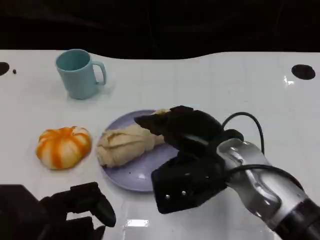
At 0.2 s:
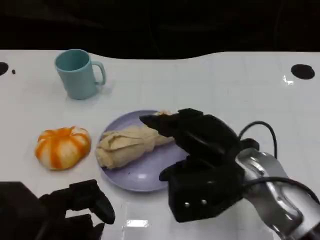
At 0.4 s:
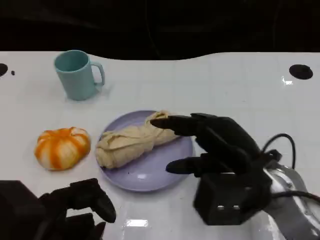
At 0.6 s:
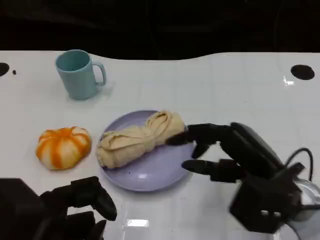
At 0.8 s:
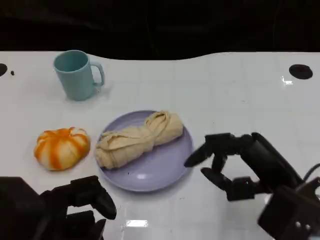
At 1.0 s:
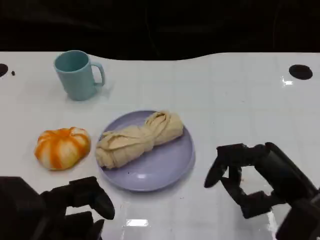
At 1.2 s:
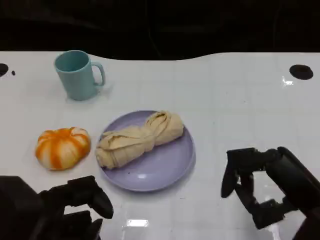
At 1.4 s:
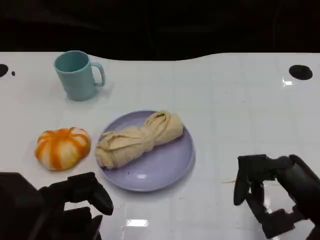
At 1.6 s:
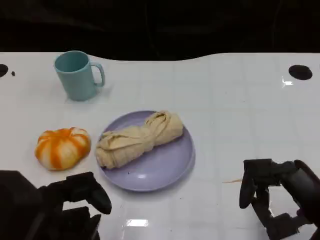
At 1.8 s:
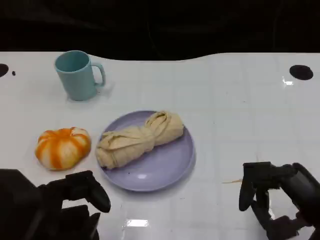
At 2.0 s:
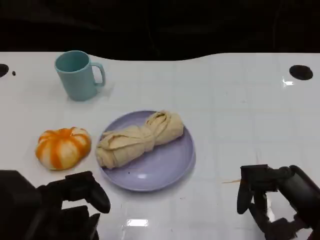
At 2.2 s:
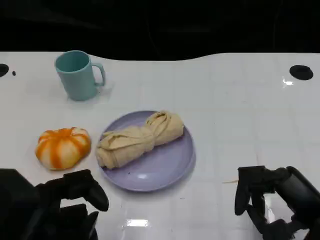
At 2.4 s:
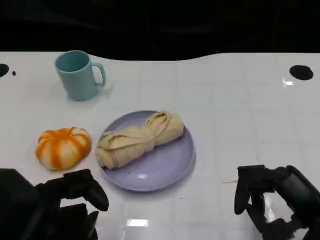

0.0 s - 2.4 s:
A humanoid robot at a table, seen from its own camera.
Task of the whole recording: Grasp the towel on the left side of the plate with the left hand and place it into the plate.
0.0 s - 1.2 s: The right hand shifts about 15 cm to the right and backward.
1.2 s - 2.4 s: The hands make only small movements.

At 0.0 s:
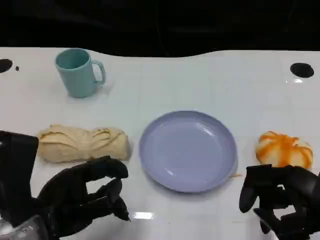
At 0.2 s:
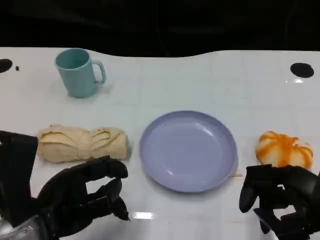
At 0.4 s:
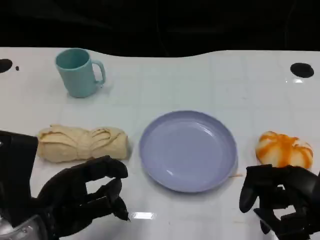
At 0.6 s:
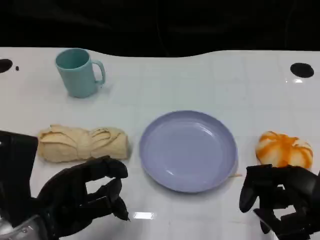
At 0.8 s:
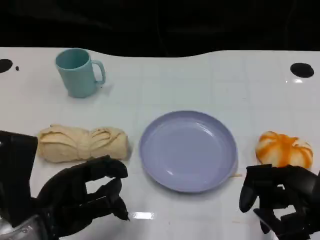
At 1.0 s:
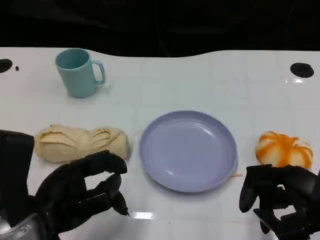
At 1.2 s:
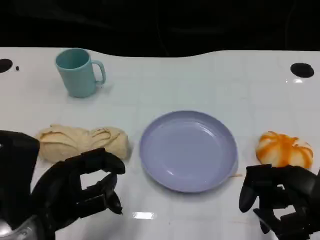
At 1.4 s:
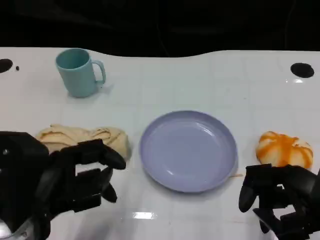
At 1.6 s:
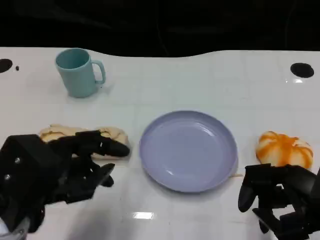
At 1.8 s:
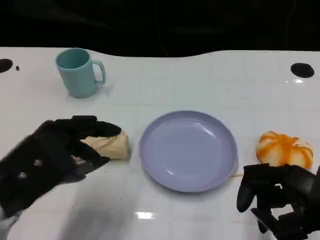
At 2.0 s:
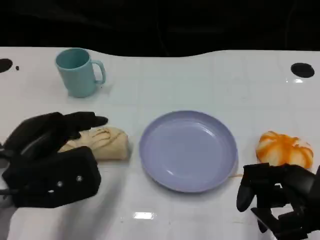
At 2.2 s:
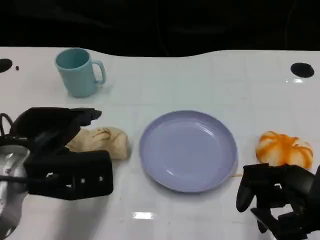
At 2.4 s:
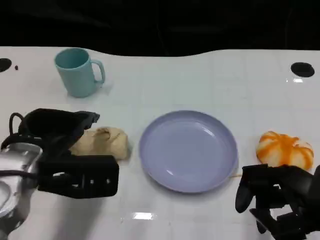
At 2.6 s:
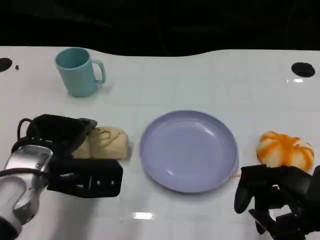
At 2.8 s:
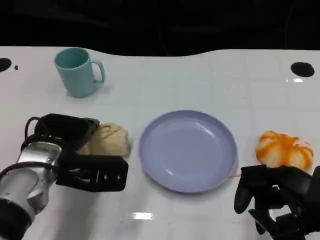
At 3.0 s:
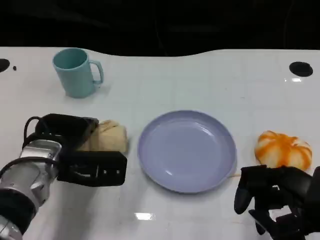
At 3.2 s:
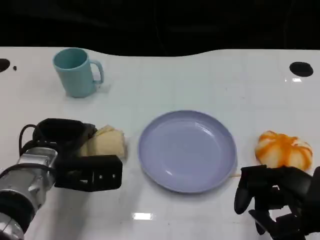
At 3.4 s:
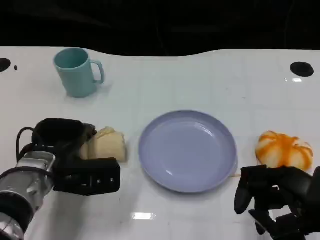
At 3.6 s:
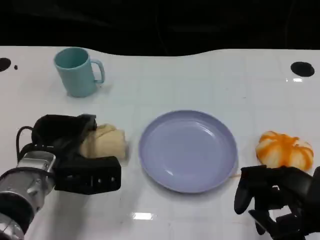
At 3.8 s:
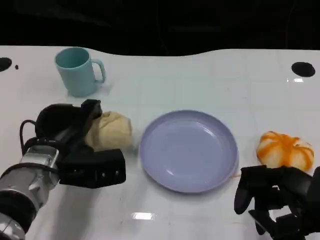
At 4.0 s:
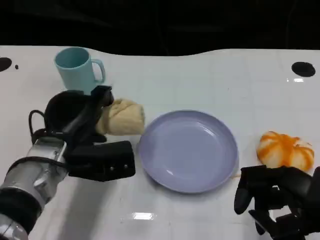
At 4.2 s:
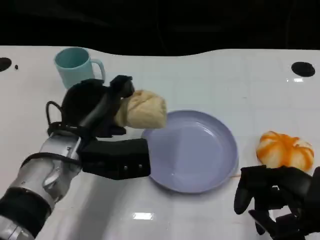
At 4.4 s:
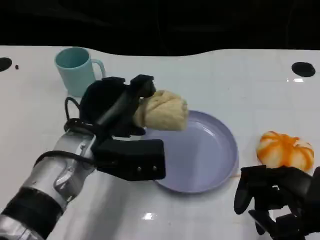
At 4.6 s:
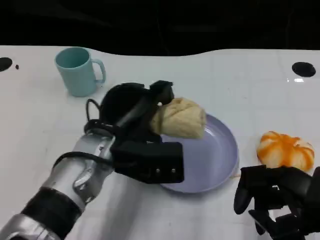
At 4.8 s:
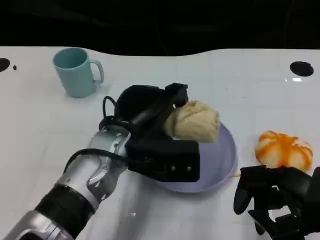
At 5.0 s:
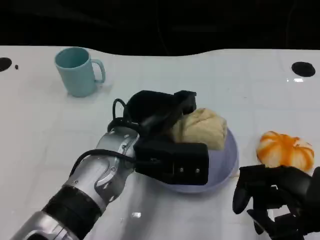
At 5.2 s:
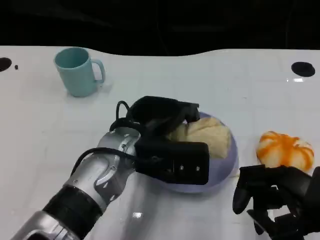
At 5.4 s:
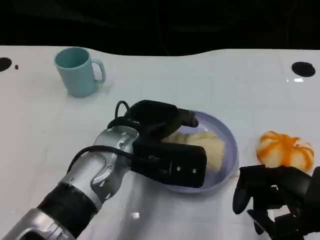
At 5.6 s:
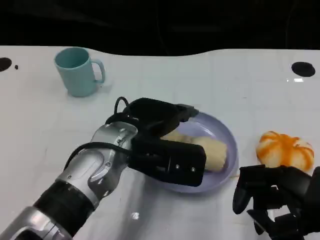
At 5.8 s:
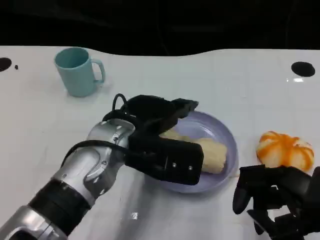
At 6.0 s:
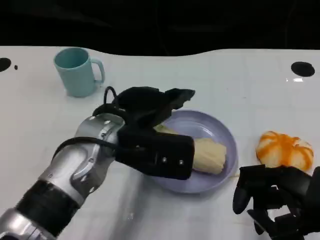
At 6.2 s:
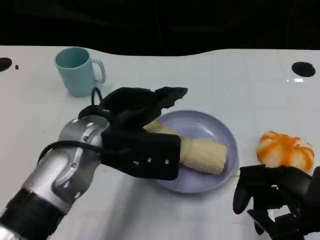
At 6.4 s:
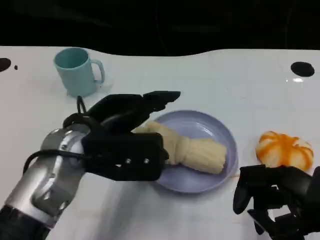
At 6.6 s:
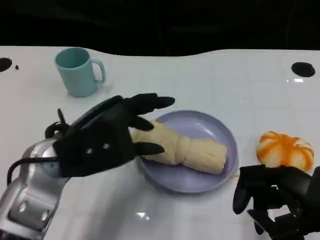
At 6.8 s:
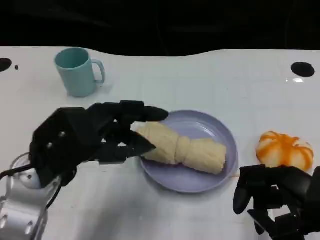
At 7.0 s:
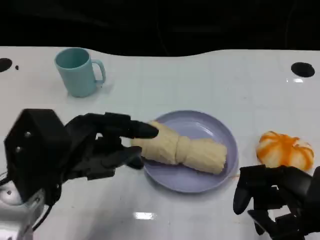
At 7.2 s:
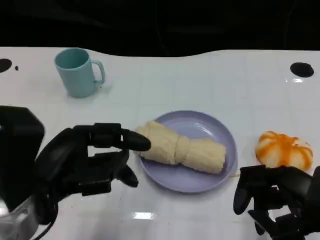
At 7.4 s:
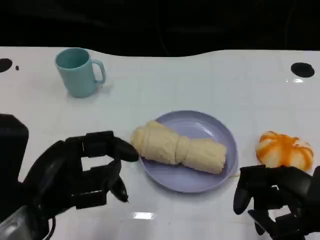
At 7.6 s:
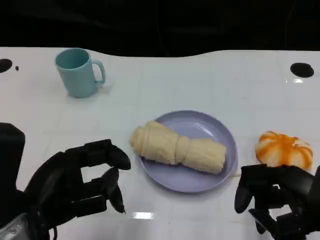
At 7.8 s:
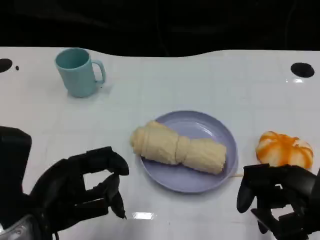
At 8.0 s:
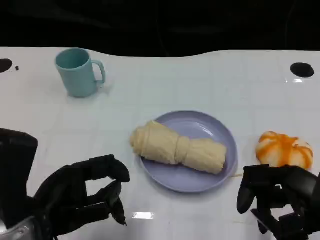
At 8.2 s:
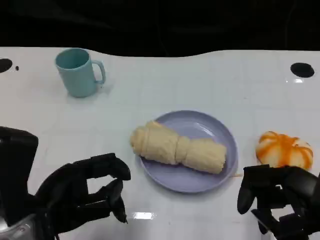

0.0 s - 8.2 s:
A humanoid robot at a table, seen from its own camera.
Task of the whole recording: Grasp the towel on the left side of the plate with the left hand and place it into the plate.
1.6 s - 3.2 s: The left hand travels forward and downward by roughly 15 cm.
3.2 s - 5.0 s: The left hand is displaced to the right and upward by some 15 cm.
5.0 s - 6.6 s: The left hand goes about 10 cm to the left.
6.6 s - 8.2 s: The left hand is displaced backward by about 5 cm.

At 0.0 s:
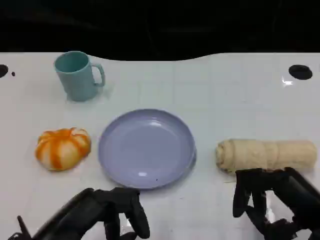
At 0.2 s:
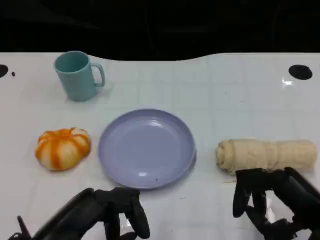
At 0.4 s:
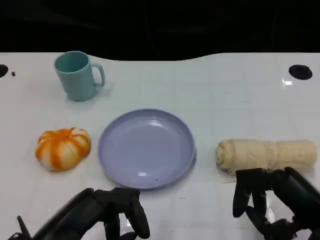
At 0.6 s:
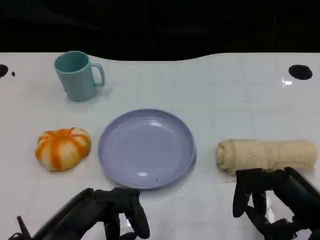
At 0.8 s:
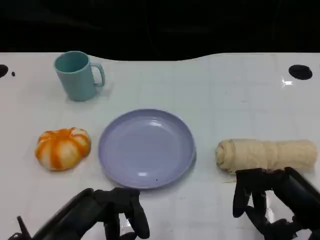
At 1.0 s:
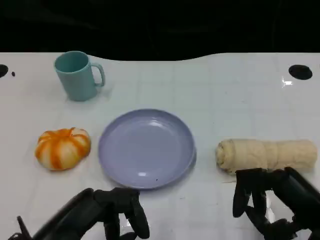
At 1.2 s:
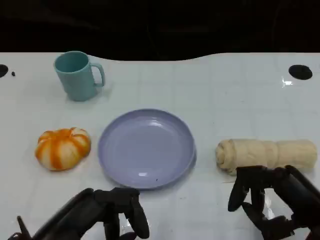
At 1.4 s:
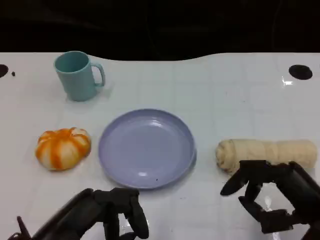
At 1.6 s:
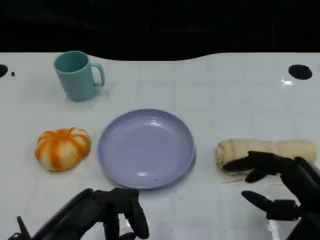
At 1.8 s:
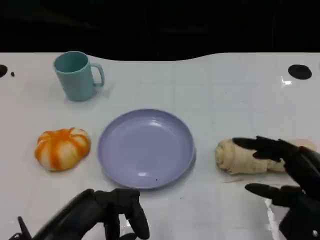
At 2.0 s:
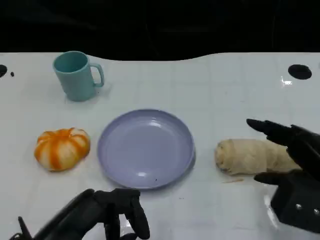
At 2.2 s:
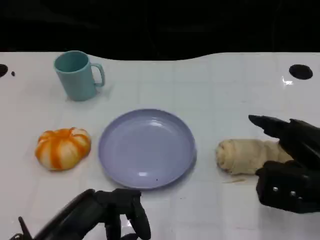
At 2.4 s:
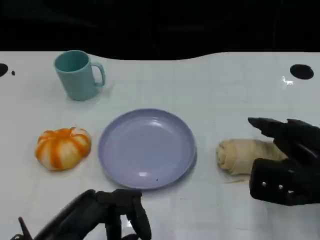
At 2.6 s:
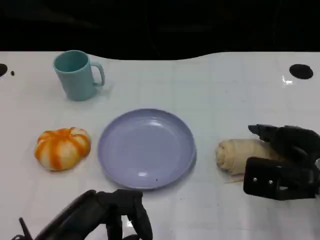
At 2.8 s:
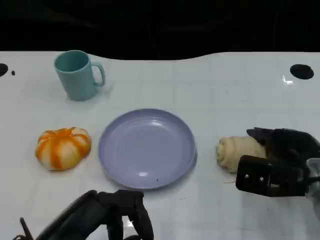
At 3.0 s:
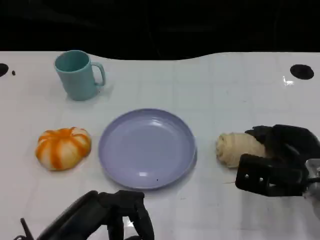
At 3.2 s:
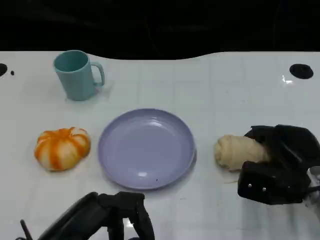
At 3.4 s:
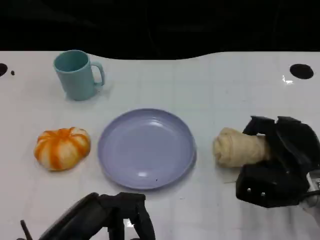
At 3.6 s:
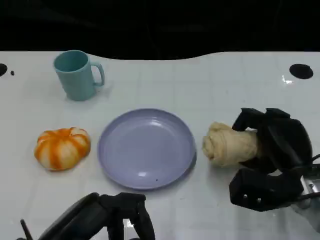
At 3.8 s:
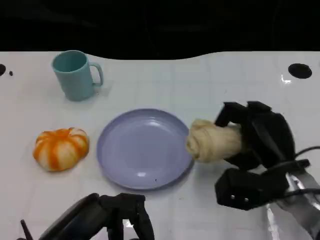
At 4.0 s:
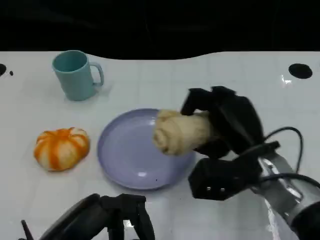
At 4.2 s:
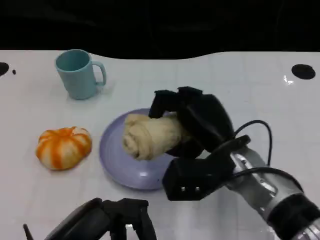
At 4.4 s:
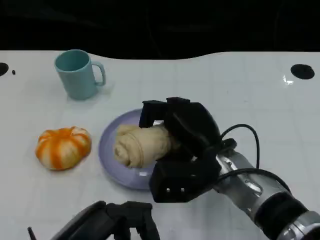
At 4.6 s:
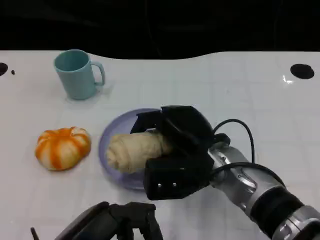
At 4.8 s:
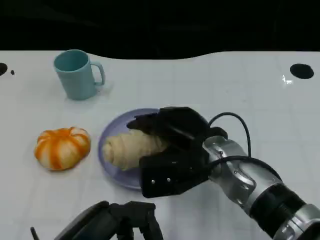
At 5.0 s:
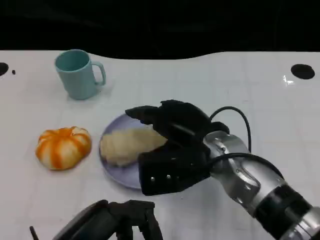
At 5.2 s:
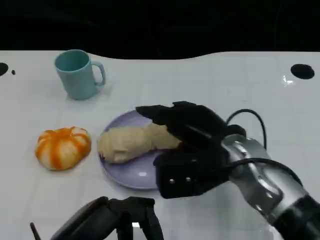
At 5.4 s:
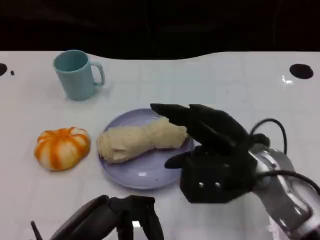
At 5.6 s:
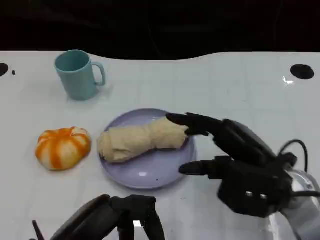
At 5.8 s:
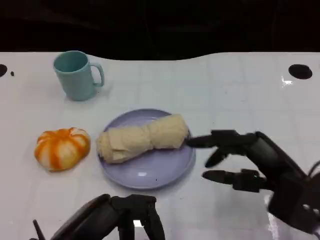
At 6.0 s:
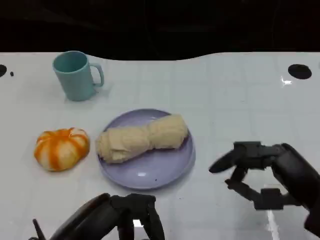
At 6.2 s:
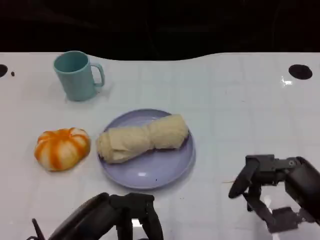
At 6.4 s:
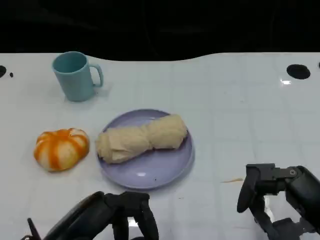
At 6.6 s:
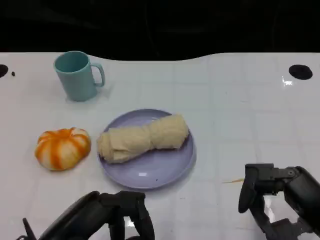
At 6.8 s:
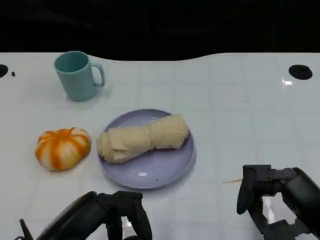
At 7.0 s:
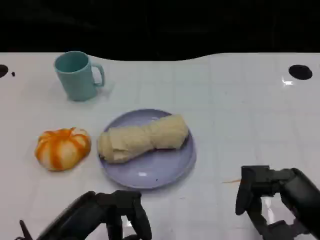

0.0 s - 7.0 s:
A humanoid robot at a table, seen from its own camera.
Task of the whole recording: Grasp the towel on the left side of the plate with the left hand and place it into the plate.
0.0 s - 1.4 s: The hands make only small movements.
1.4 s - 2.8 s: The right hand is displaced forward by some 10 cm.
2.8 s - 4.2 s: The right hand moves to the left, roughly 15 cm.
4.2 s - 5.6 s: The right hand heads to the right, covering some 10 cm.
5.6 s - 7.0 s: The right hand moves backward and to the right, roughly 10 cm.

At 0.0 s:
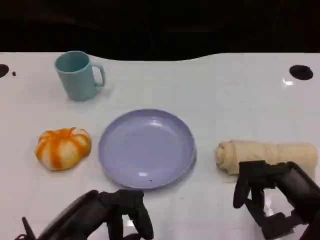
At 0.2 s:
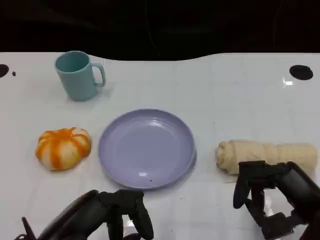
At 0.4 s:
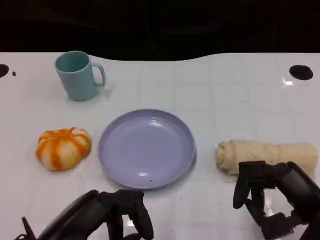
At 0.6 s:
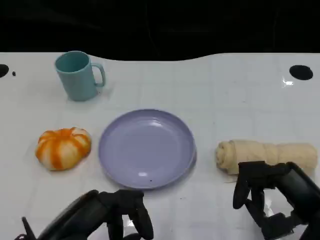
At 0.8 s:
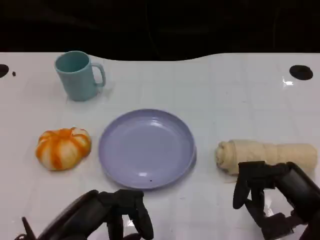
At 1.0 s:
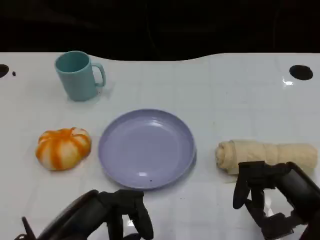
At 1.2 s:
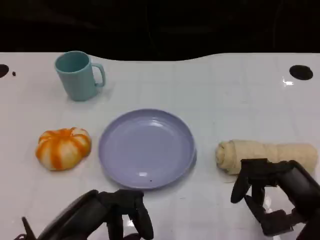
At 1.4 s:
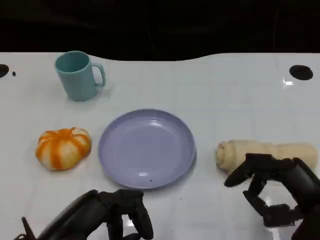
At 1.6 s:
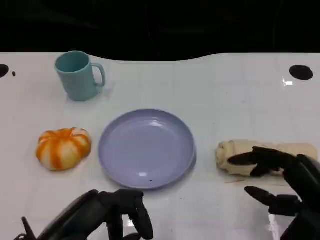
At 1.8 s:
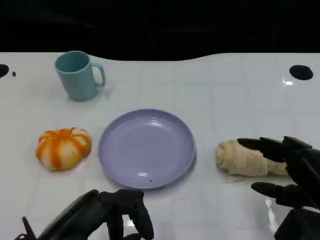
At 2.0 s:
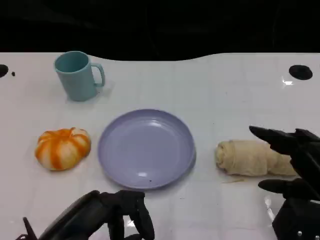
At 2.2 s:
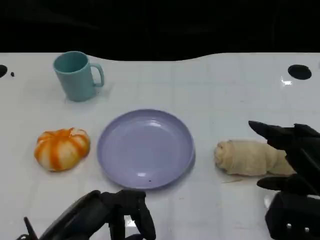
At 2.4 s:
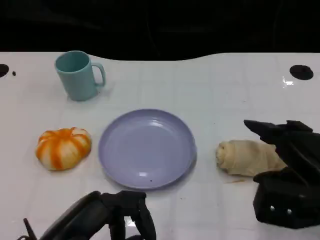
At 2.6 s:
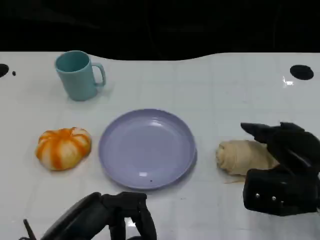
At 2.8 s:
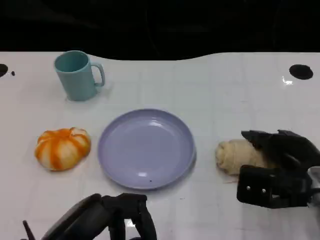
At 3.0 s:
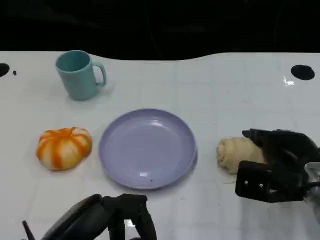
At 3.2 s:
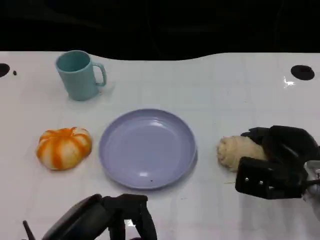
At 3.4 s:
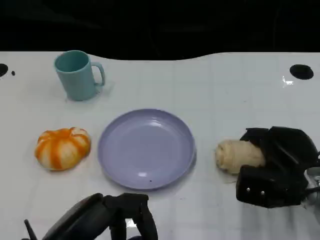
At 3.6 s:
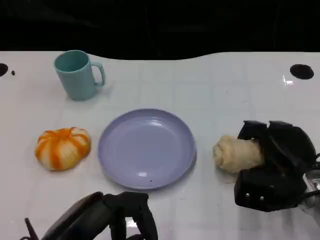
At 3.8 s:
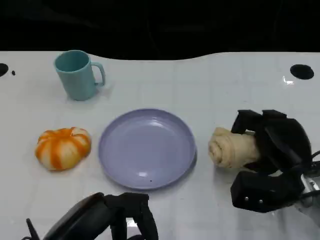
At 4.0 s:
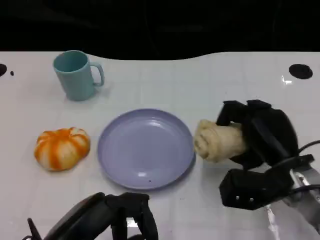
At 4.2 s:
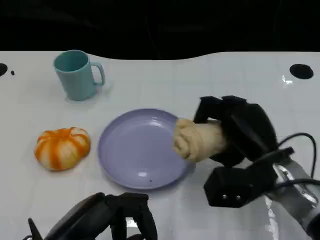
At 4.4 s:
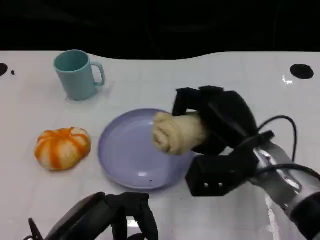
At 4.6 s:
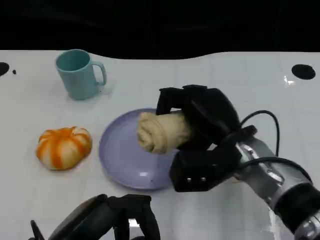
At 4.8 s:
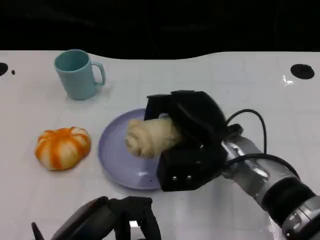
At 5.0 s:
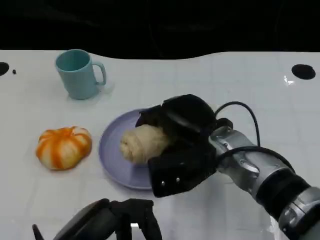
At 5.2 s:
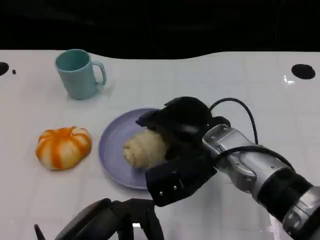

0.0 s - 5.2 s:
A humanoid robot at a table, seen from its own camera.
Task of the whole recording: Grasp the towel on the left side of the plate with the left hand and place it into the plate.
1.8 s - 3.4 s: The right hand travels forward and downward by roughly 10 cm.
3.4 s - 5.2 s: The right hand moves to the left and upward, approximately 15 cm.
